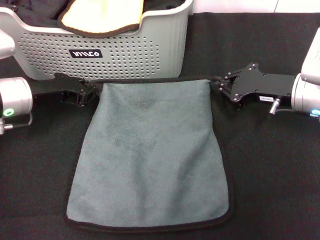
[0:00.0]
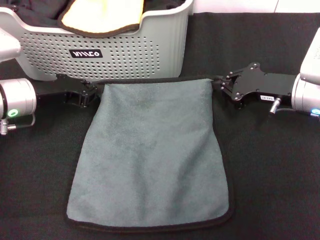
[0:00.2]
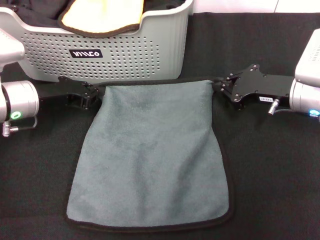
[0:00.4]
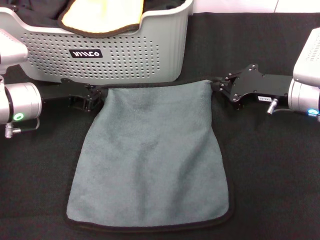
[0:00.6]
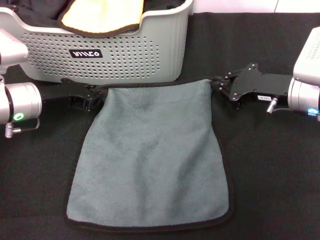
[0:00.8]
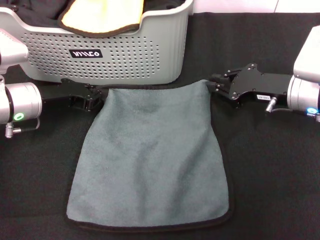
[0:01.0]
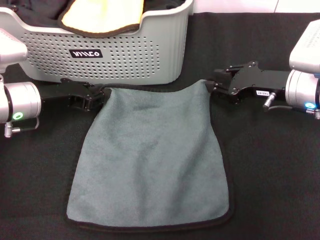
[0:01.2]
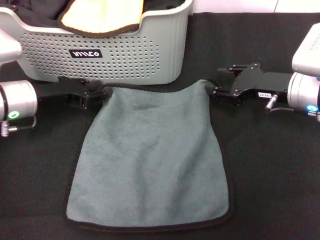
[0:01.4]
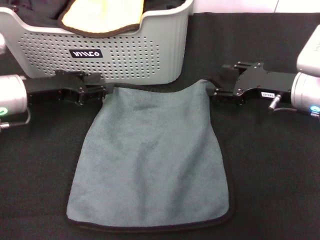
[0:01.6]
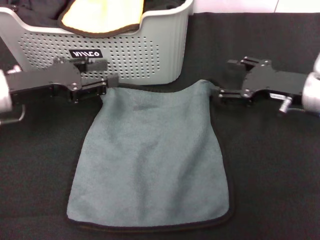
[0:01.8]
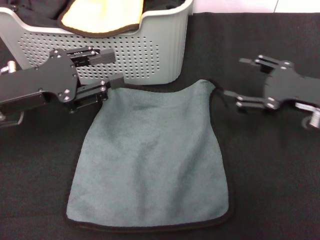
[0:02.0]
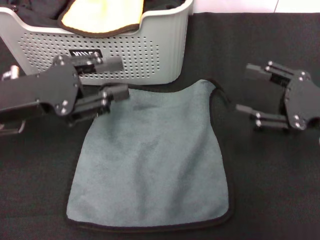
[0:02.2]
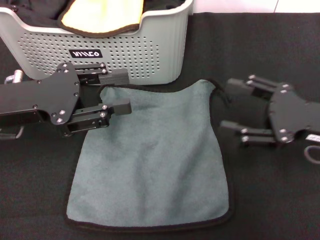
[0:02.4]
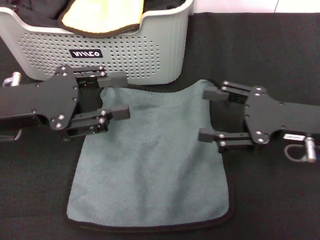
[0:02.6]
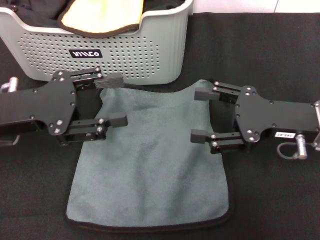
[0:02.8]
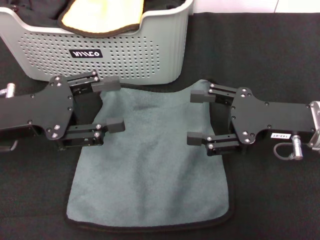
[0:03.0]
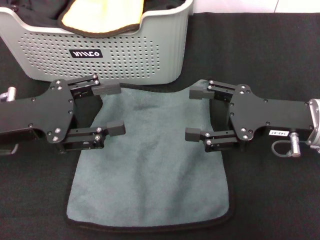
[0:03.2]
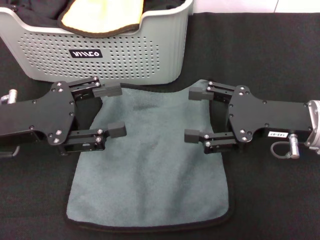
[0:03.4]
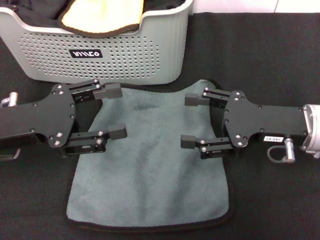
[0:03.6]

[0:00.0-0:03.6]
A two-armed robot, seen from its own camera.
Task of the whole recording: pick up the towel from the storage box and lay it flat on the black tablecloth.
0:00.0 to 0:01.8: The left gripper opens up. Meanwhile the right gripper opens up.
0:01.8 to 0:03.6: Both grippers travel together backward, some 5 cm.
